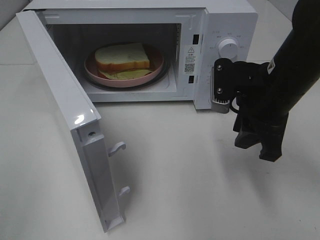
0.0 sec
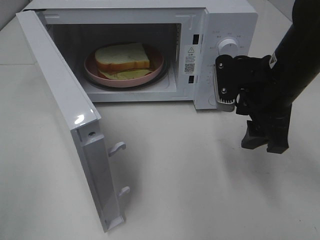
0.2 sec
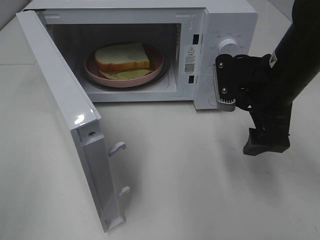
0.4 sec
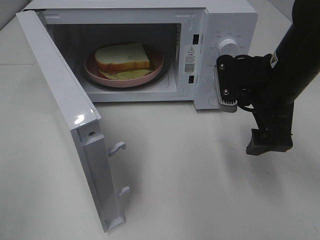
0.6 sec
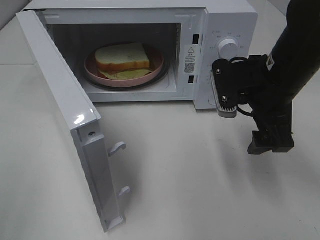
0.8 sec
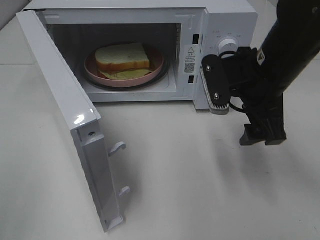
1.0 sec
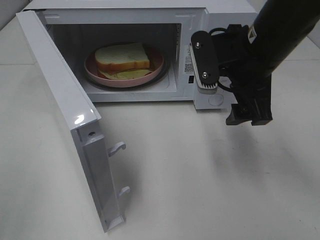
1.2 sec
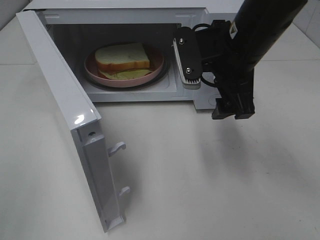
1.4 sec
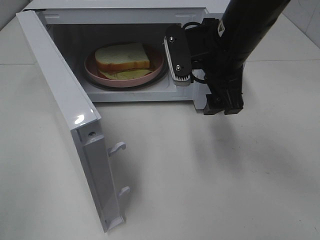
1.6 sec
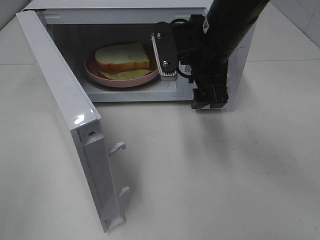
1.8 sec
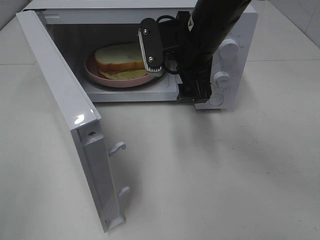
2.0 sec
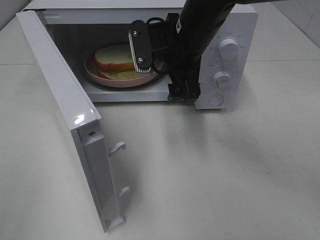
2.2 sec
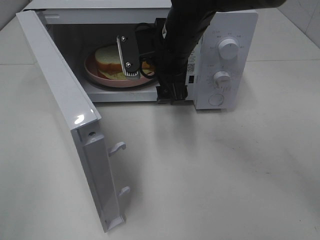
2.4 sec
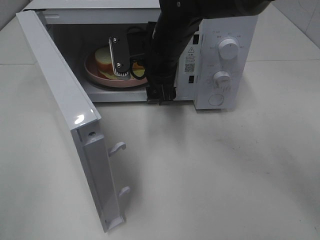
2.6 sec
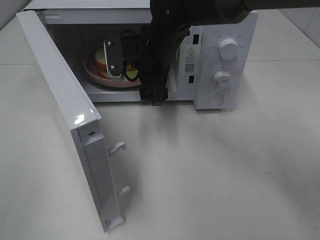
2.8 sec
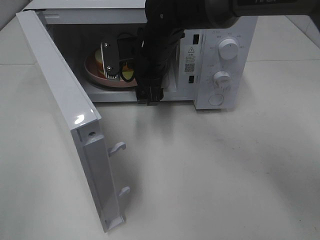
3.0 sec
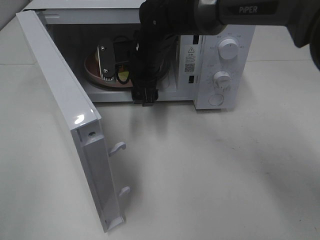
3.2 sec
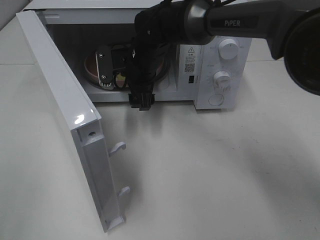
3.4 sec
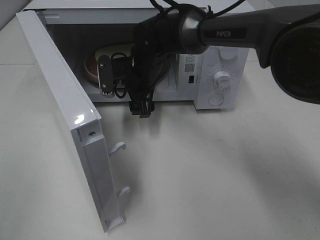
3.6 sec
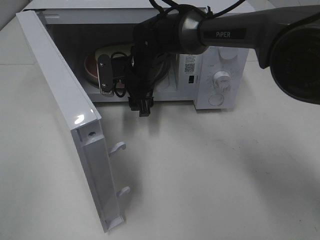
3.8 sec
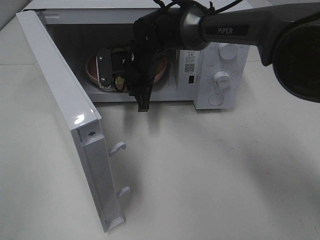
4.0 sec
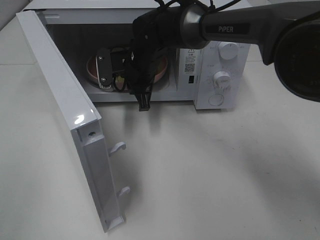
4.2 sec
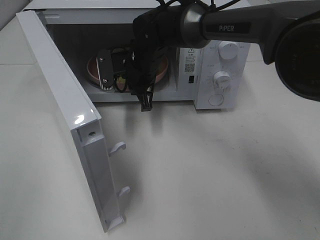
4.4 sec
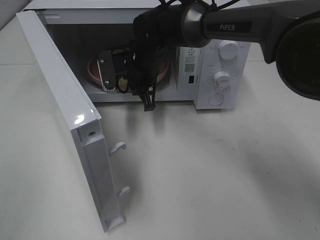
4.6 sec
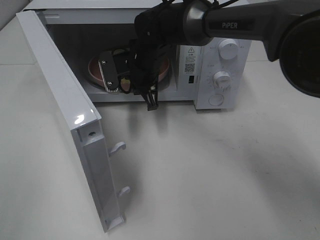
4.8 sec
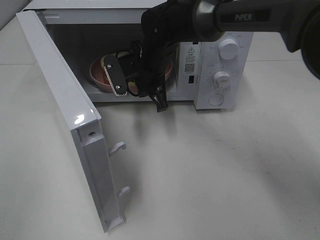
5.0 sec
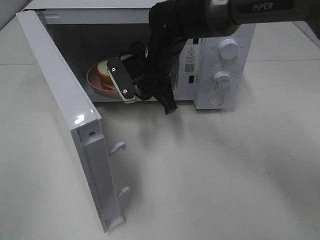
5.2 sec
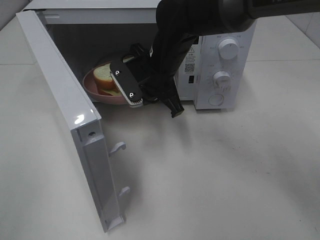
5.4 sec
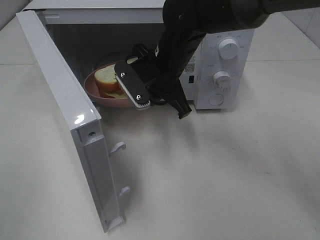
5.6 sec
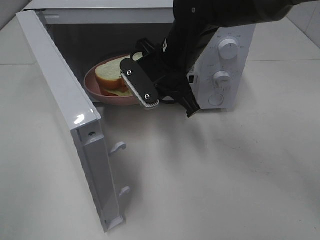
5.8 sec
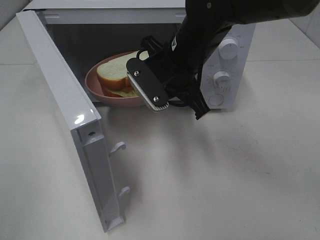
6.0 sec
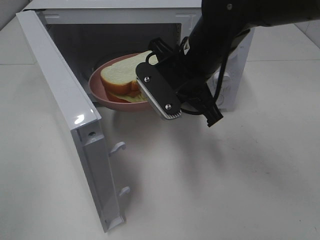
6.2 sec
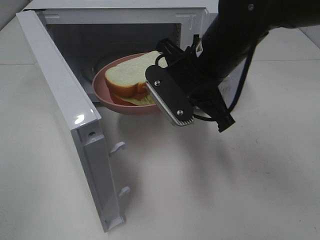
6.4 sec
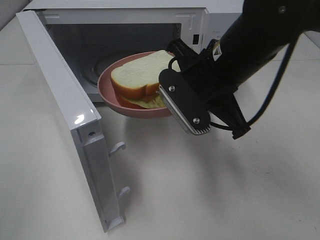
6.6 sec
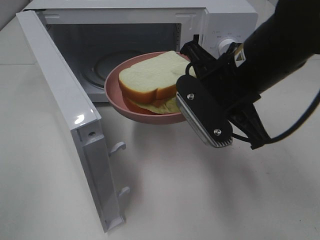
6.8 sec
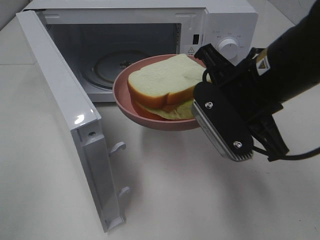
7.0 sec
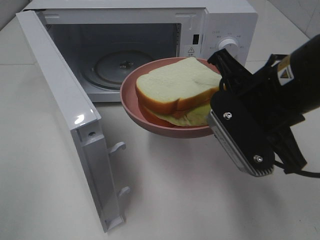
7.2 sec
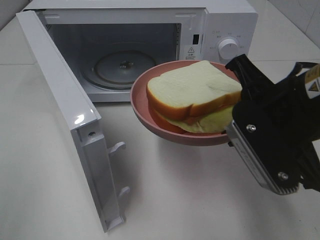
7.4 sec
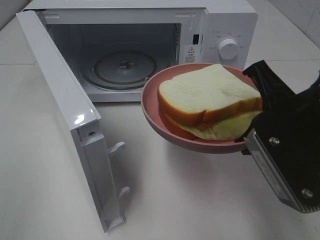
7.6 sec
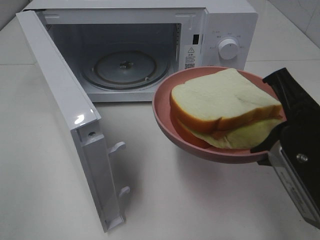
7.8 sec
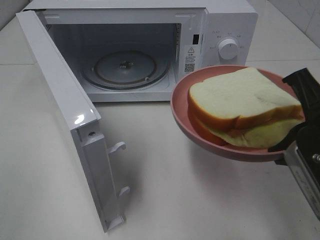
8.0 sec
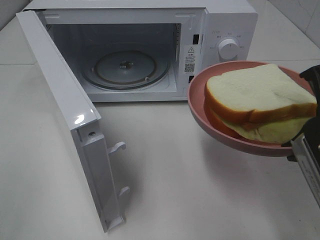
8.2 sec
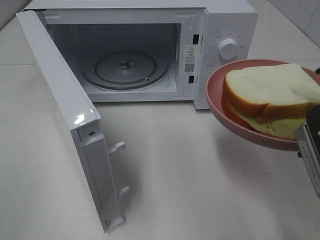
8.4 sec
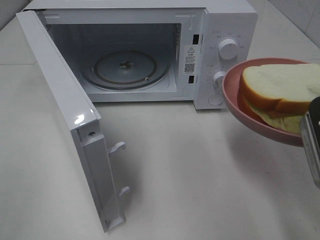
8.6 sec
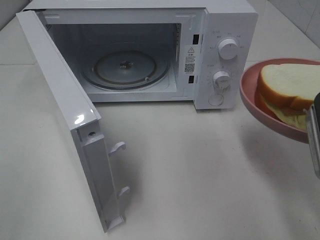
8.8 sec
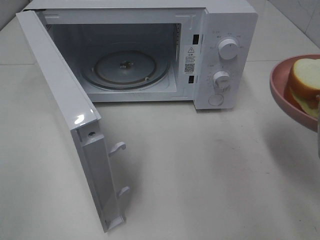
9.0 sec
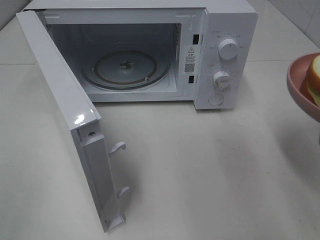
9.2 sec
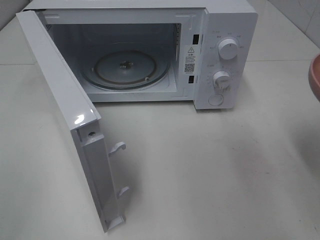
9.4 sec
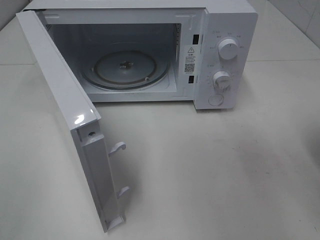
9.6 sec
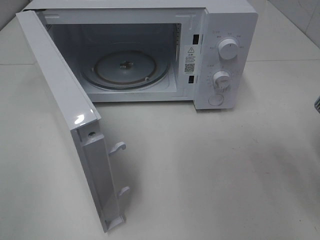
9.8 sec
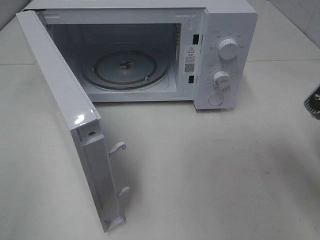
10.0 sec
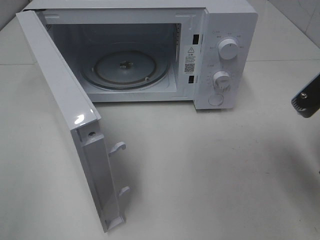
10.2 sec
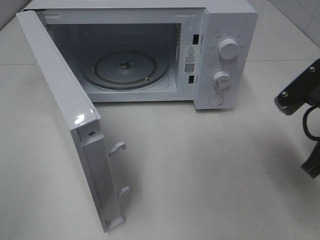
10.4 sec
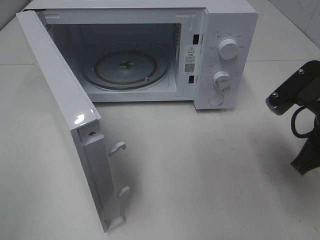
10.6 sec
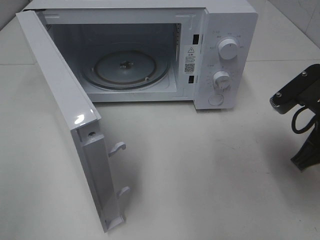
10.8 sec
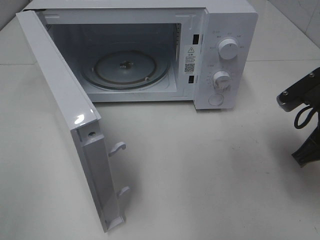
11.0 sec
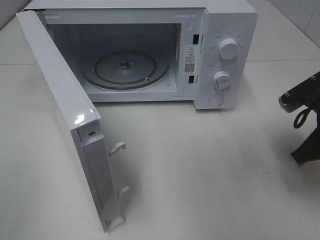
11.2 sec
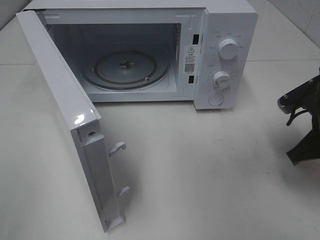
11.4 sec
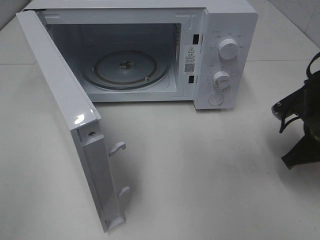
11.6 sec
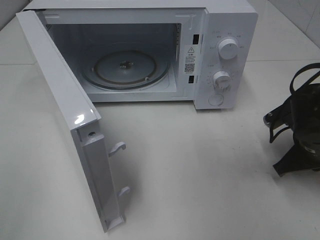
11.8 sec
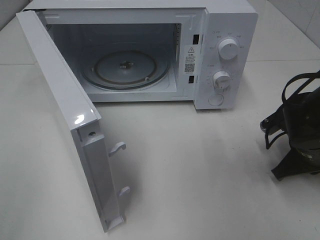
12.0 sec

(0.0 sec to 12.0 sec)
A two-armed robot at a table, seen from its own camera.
Task of the whole recording: Heat Sandwich.
Step, 0.0 sec - 4.4 sec: Right hand: grab the plate with the sandwich.
0.0 sec - 1.6 sec: The right gripper heads to the left, covering some 5 cm, and opens its fingers.
1.6 sec - 3.0 sec: The right gripper heads to the left, forward and downward, covering some 15 cm.
3.0 sec - 4.4 sec: The right gripper closes its fingers.
4.4 sec - 6.0 sec: The right gripper heads backward, upward and to the right, covering about 15 cm.
6.0 sec - 7.6 sec: The right gripper heads backward and to the right, covering about 20 cm.
7.6 sec - 9.0 sec: The right gripper shifts approximately 5 cm to the right.
9.0 sec - 10.4 sec: The right gripper changes place by roughly 5 cm.
10.4 sec - 12.0 sec: The right gripper moves downward and forward, roughly 15 cm.

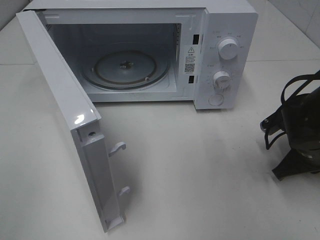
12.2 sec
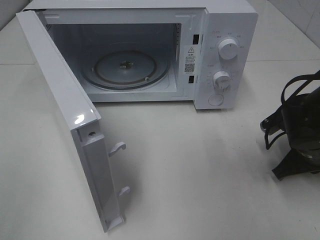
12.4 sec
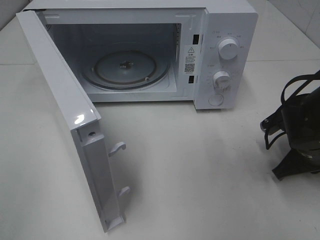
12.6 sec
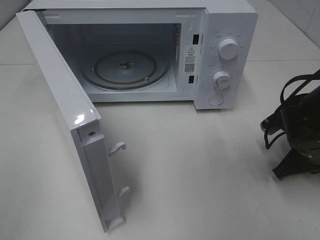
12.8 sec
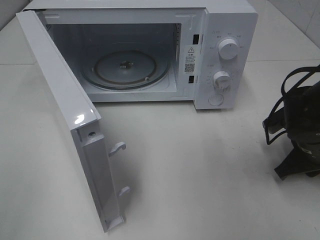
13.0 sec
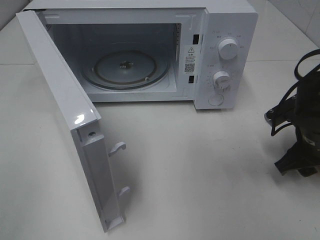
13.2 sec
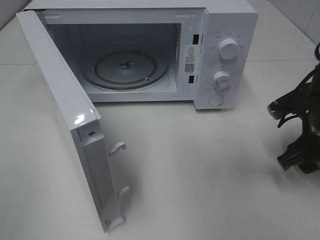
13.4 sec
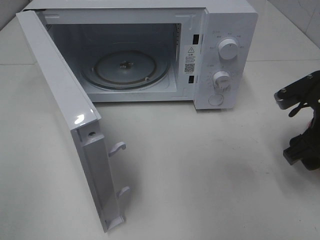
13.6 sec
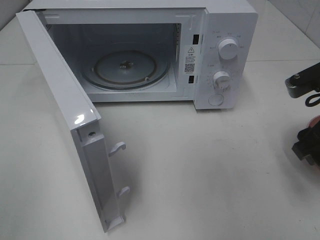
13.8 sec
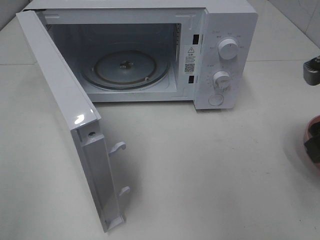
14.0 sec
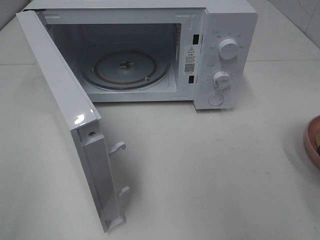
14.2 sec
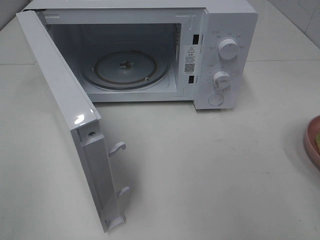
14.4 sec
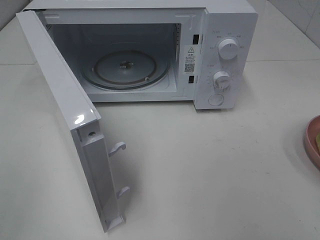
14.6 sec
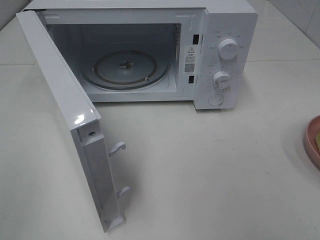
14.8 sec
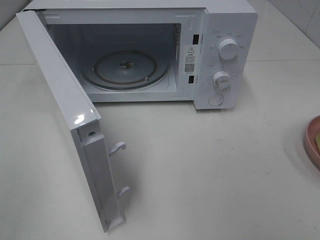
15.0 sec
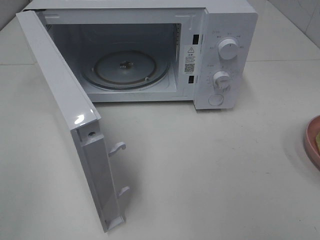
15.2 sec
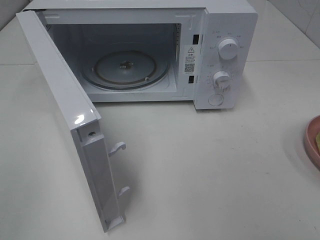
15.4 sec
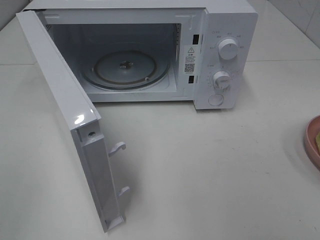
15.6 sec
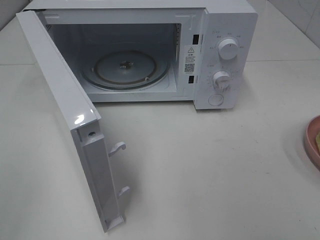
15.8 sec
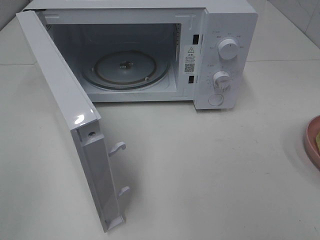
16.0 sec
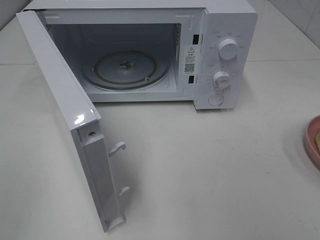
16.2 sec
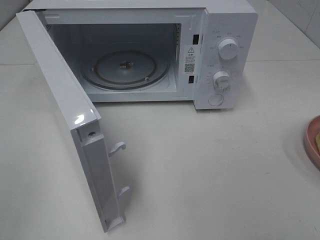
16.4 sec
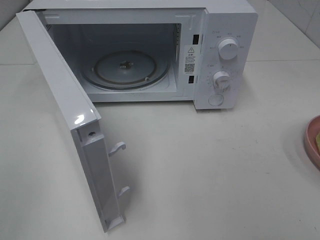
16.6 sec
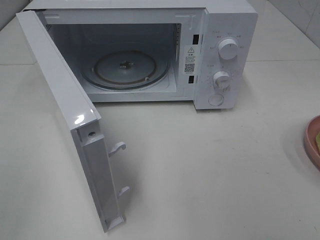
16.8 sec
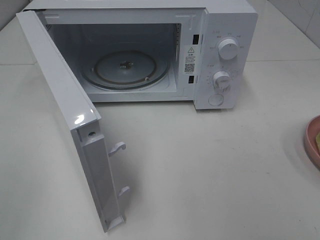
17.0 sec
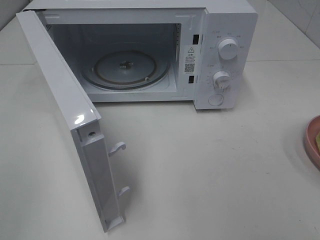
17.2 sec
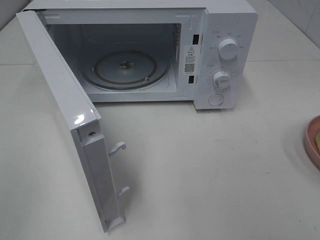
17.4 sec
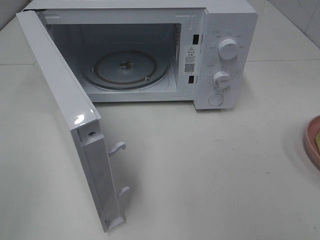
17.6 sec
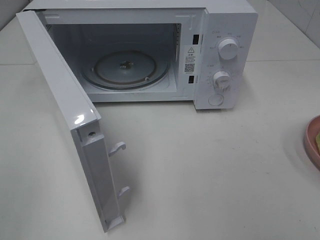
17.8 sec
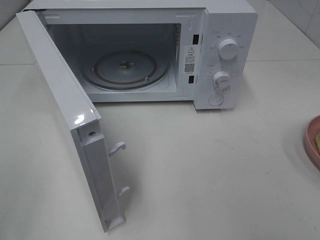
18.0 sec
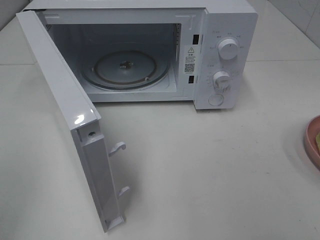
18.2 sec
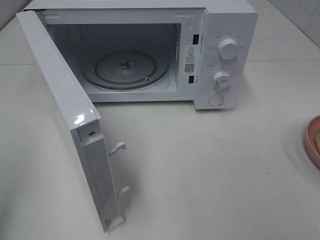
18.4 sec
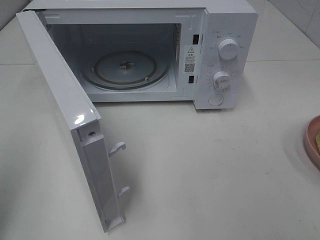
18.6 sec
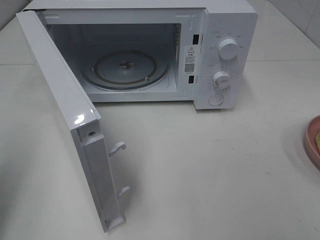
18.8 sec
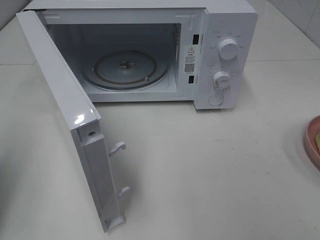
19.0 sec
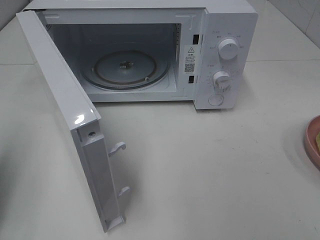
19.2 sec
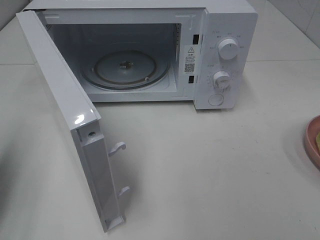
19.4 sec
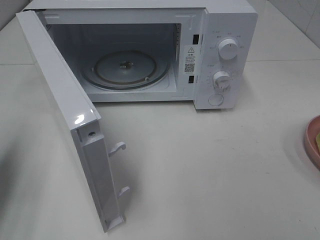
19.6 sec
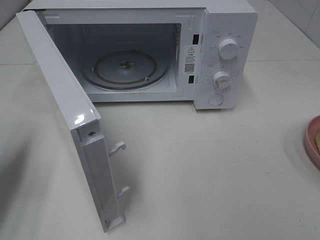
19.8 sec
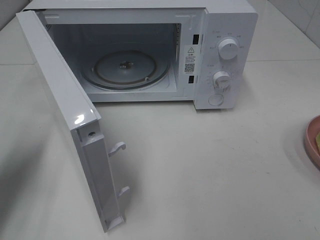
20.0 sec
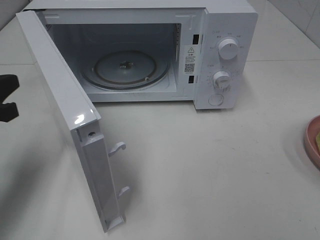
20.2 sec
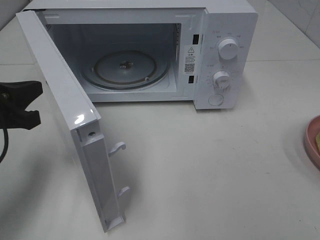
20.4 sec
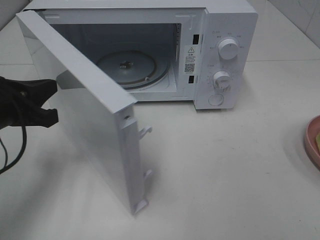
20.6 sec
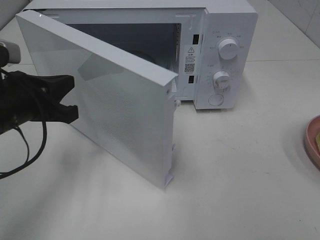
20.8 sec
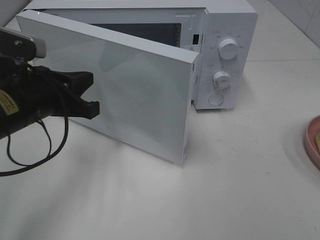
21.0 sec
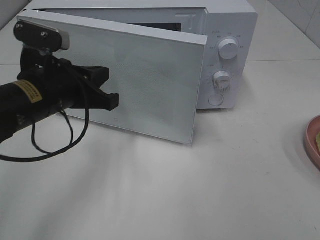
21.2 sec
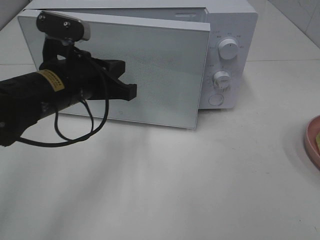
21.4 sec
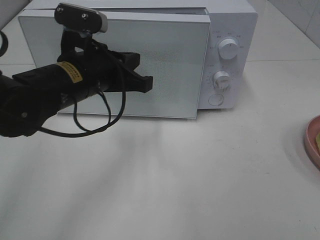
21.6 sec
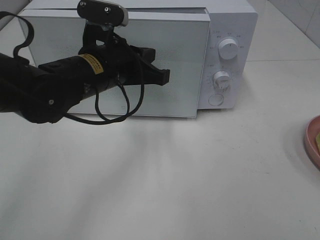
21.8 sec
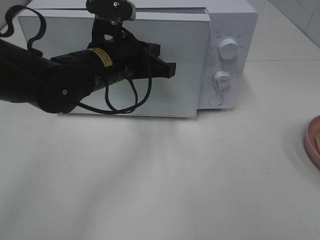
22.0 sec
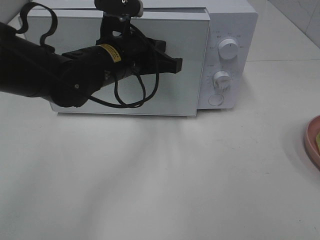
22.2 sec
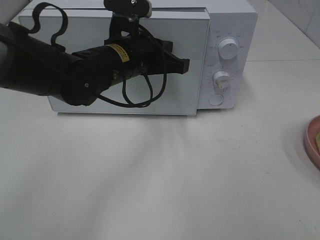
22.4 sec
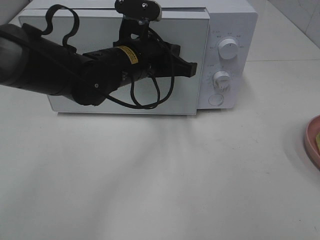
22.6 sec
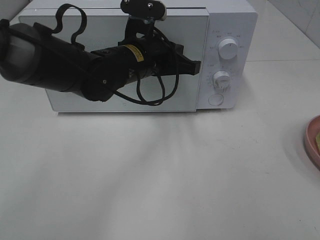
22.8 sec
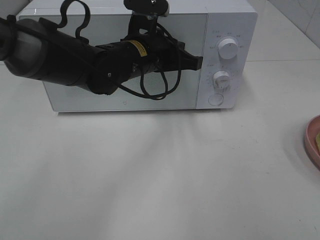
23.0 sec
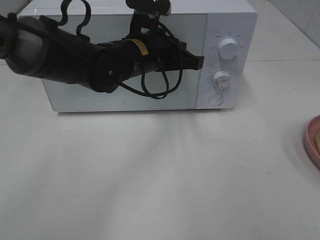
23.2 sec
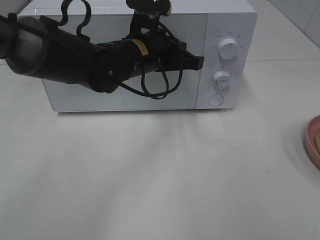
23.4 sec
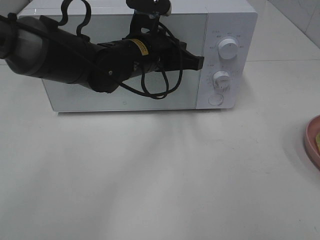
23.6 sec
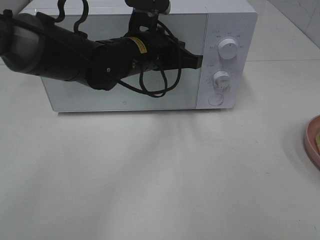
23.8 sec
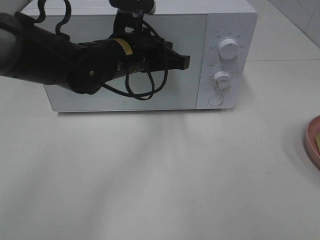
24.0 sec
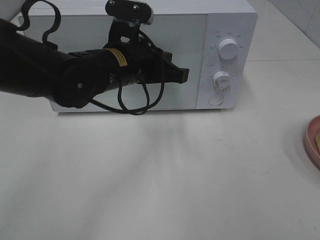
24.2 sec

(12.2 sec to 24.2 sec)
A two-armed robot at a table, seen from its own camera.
Task of the whole recording: Heat Sandwich.
Step, 13.6 sec - 24.0 sec: Left hand: close the microwave door.
12.2 sec - 13.8 sec: The right gripper goes some 15 cm upward, and opens its fingers.
13.8 sec - 15.2 sec: The right gripper is displaced backward and upward by about 20 cm.
18.2 sec - 19.8 sec: The left gripper goes roughly 20 cm forward and downward, and closes its fingers.
19.8 sec - 21.2 sec: The left gripper shifts approximately 15 cm to the right.
21.2 sec - 22.6 sec: The left gripper shifts some 15 cm to the right and forward.
22.6 sec - 24.2 sec: The grippers stay close to where they were, moving slightly.
